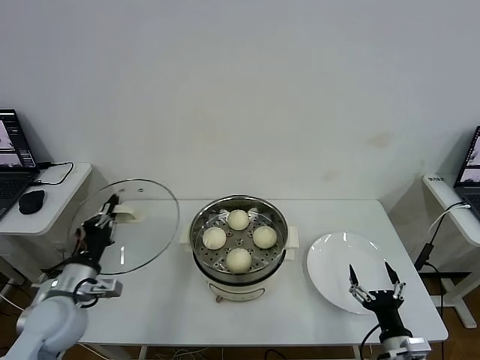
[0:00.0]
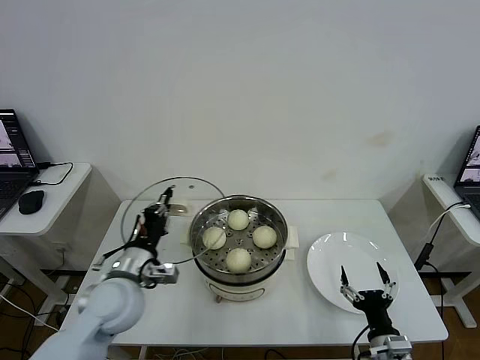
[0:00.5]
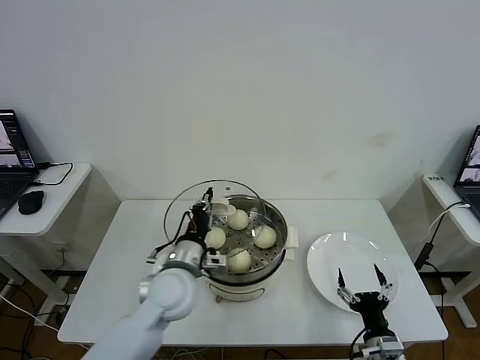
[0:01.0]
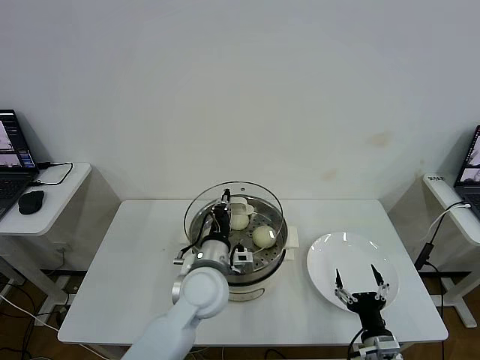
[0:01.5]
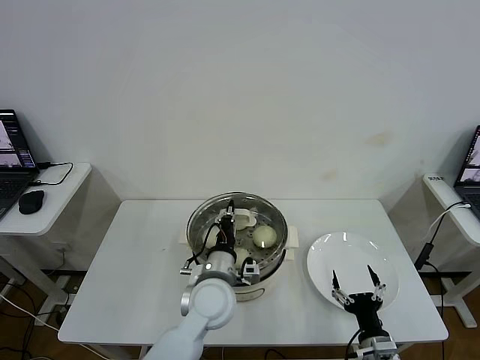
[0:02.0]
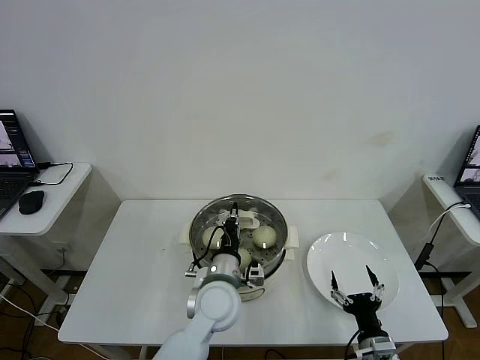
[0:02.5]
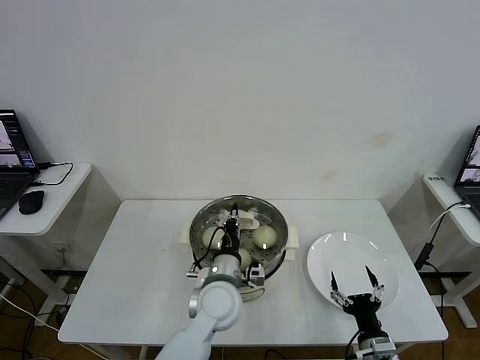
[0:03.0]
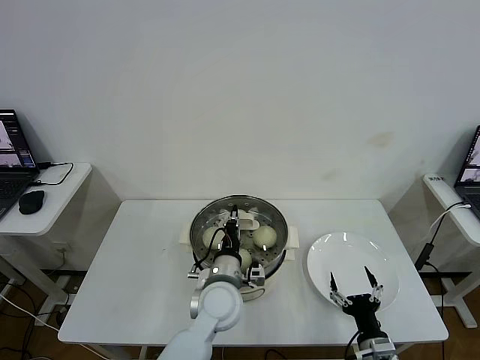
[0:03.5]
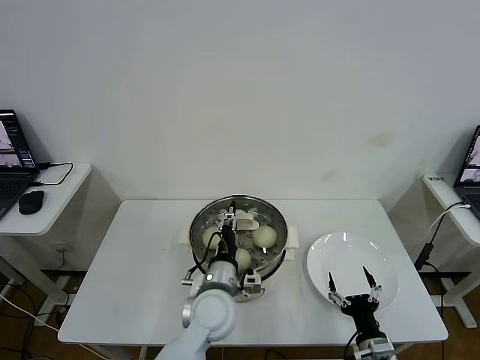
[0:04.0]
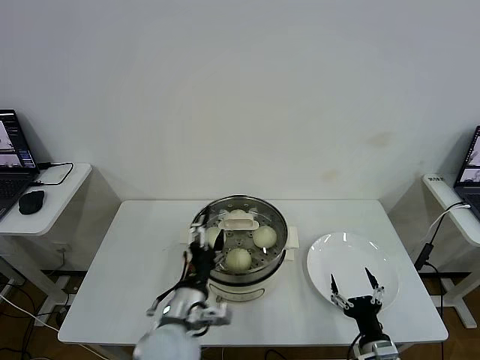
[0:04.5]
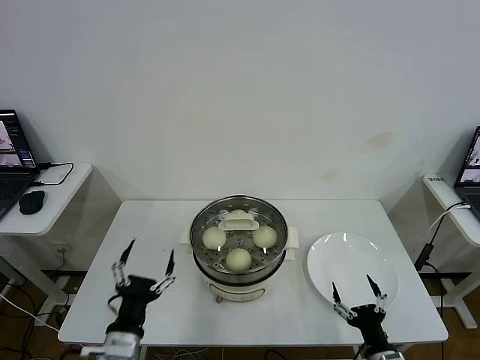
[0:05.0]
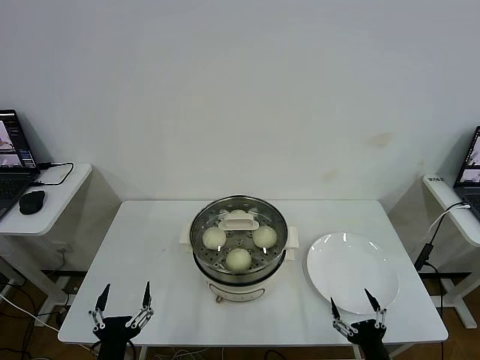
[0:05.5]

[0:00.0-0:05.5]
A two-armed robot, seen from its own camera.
Step, 0:00.0 to 0:04.0: Place the pot lid on the steamer with left gripper.
0:00.0 to 0:02.0: The left gripper travels to the right by some 30 cm.
0:02.0 to 0:03.5: The grippers stay close to where they were, moving slightly.
0:03.5 to 0:05.5: The left gripper is displaced backward and to the left by roughly 30 cm, and opens, while the right gripper moves backward, about 5 cm.

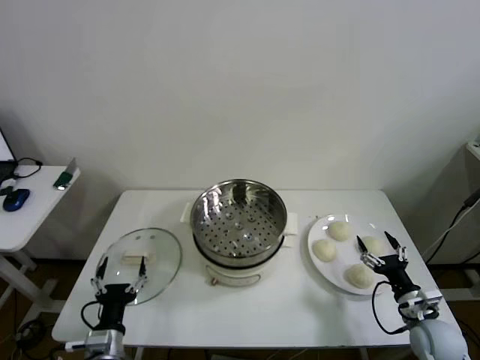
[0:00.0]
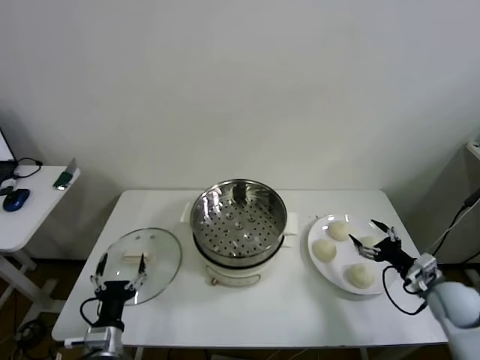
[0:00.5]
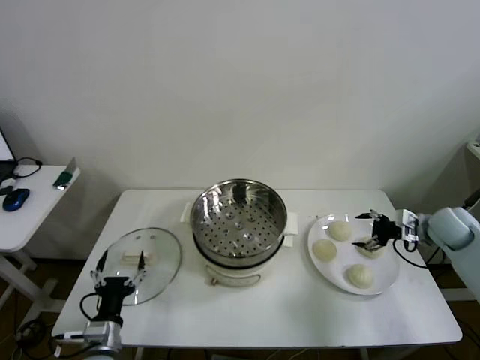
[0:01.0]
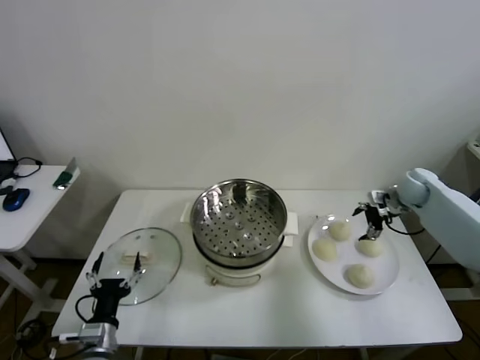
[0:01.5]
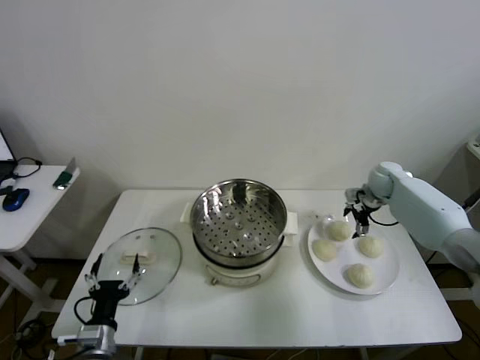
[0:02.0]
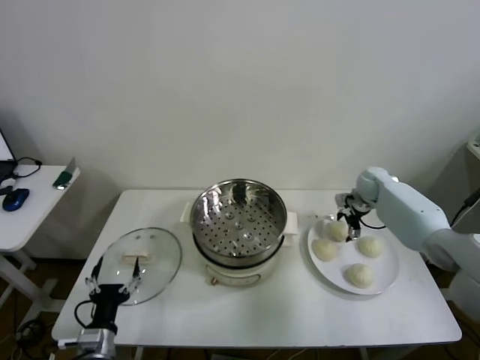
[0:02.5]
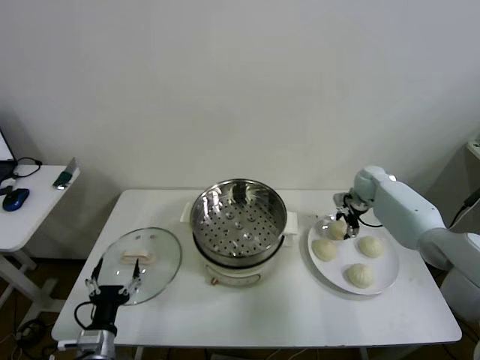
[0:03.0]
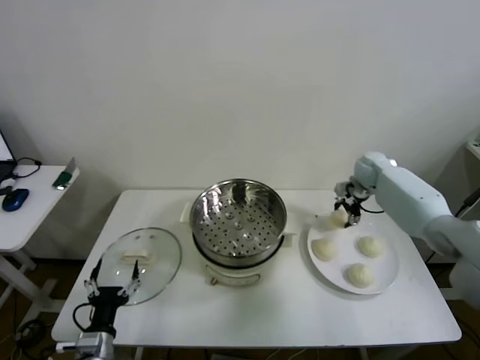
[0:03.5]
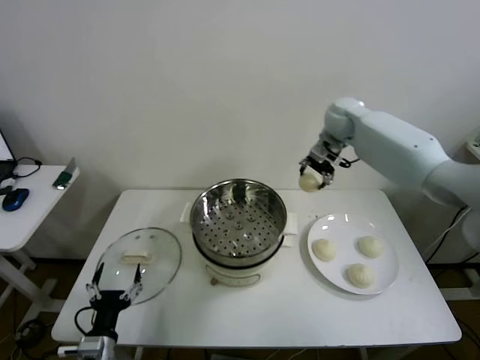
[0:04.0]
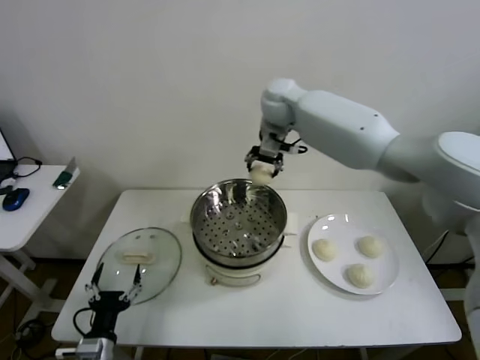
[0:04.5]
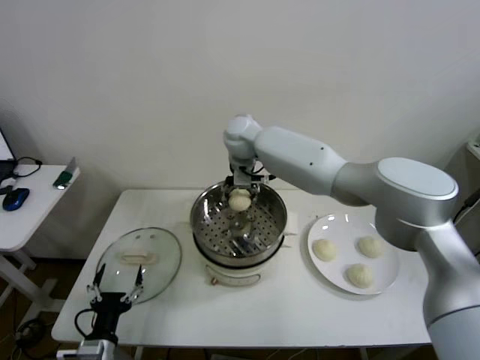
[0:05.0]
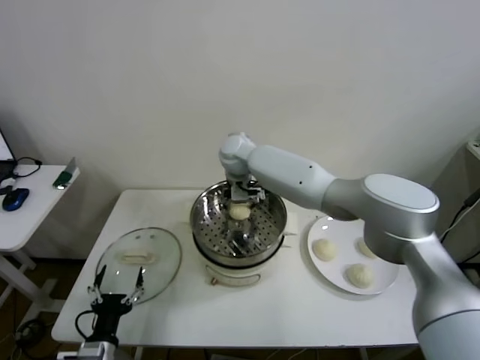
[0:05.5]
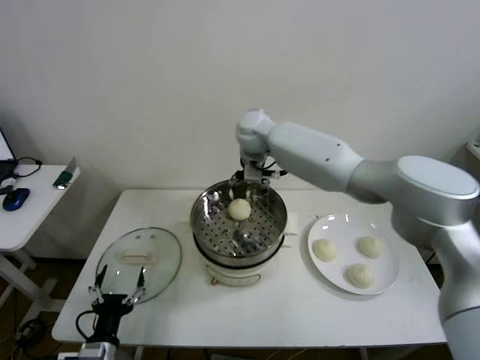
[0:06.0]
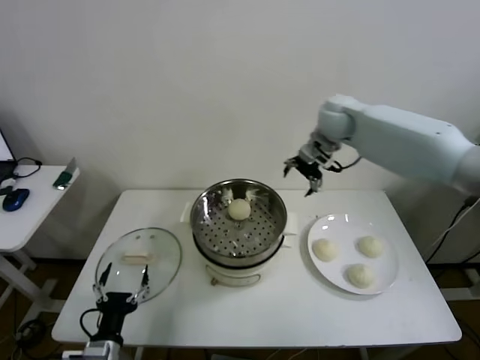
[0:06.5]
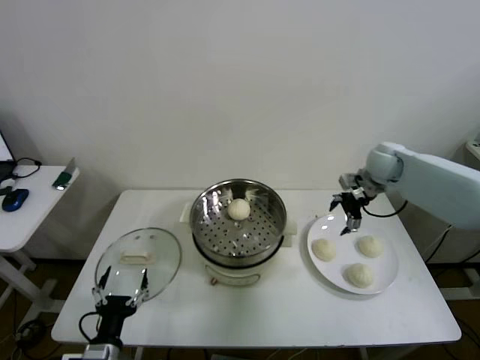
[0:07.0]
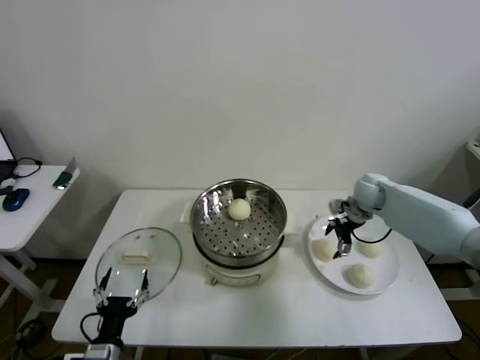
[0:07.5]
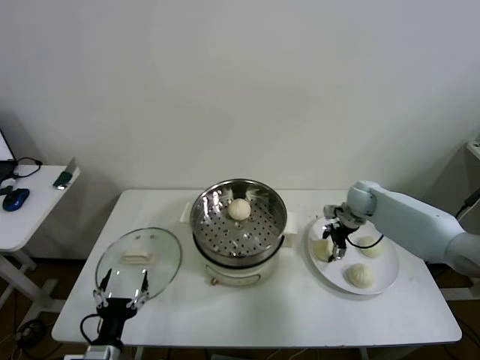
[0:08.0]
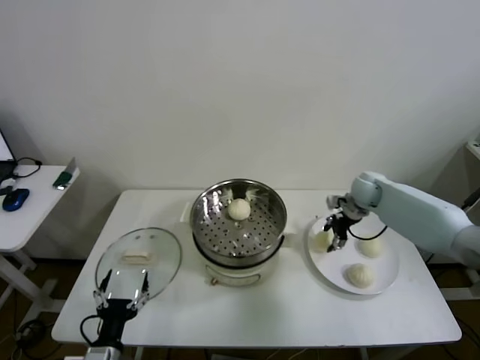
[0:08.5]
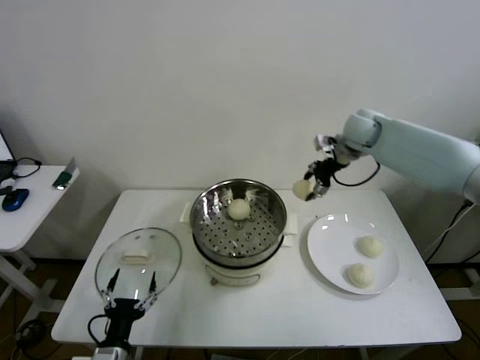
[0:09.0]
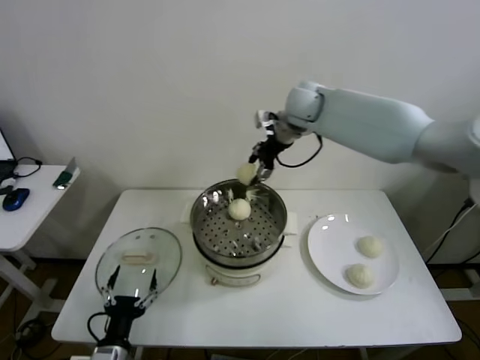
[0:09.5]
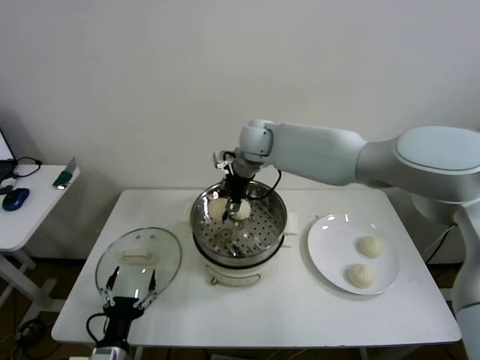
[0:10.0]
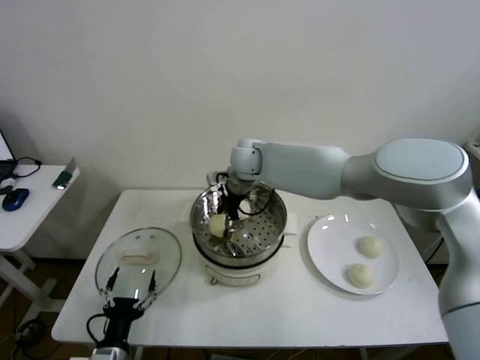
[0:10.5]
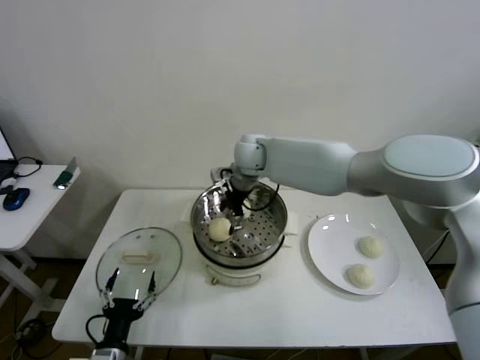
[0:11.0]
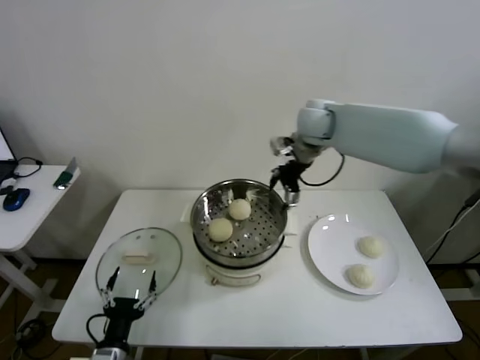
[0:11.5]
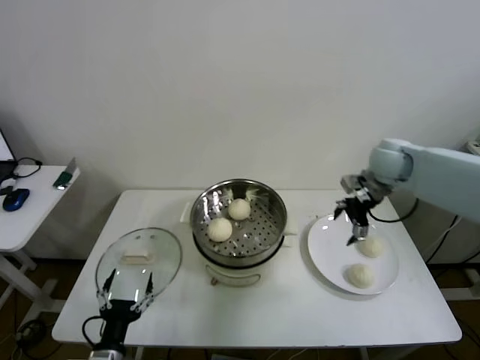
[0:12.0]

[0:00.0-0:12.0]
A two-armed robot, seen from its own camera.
Step, 0:00.0 to 0:02.5: Grasp the baozi in the plate with right gripper.
Step, 0:03.0 to 0:05.0: Place the baozi on the steamer with right gripper.
Step, 0:06.0 to 0:08.0: Grasp the baozi in the plate with right gripper.
Step, 0:08.5 to 0:10.5: Place the baozi on the steamer with right gripper.
0:02.0 to 0:04.0: The right gripper is displaced upward and to the left by some 30 cm, and closes.
0:04.0 to 0:06.0: The right gripper goes some 15 cm to the left, and opens up.
0:06.0 to 0:08.0: The right gripper goes approximately 35 cm to the right and downward, and closes.
0:08.0 to 0:10.0: The right gripper heads to the left and upward, covering about 35 cm.
0:10.0 to 0:12.0: The right gripper shifts roughly 30 cm to the right, and opens up.

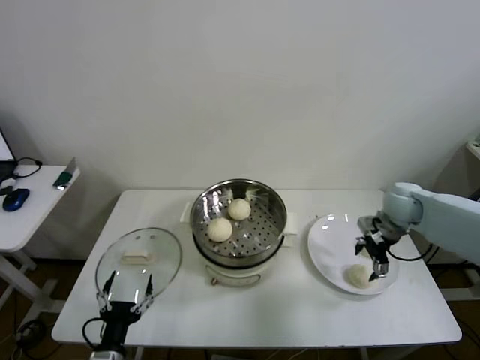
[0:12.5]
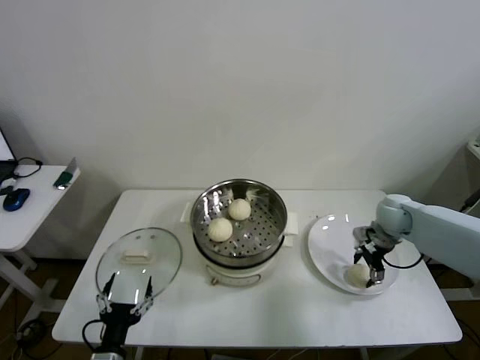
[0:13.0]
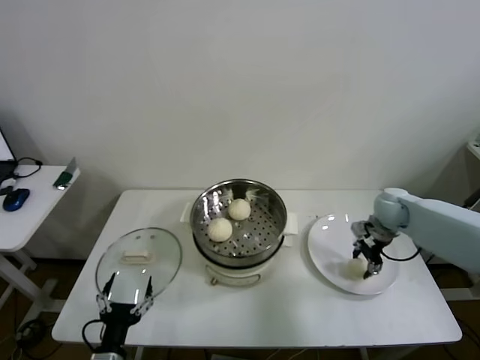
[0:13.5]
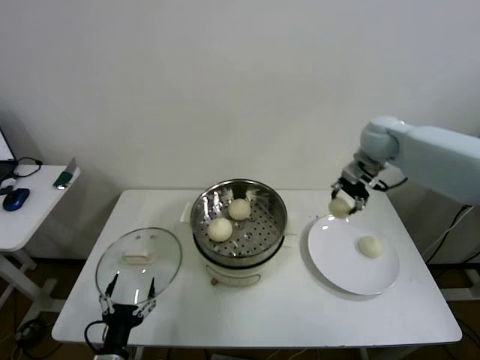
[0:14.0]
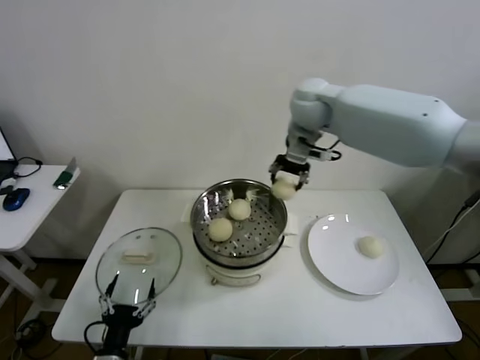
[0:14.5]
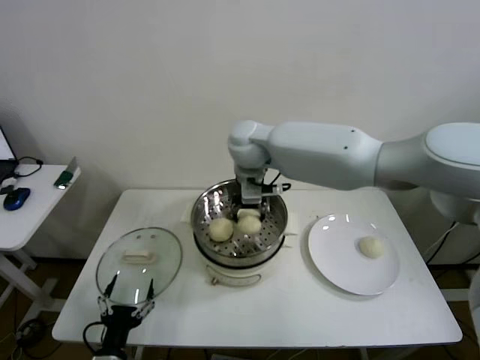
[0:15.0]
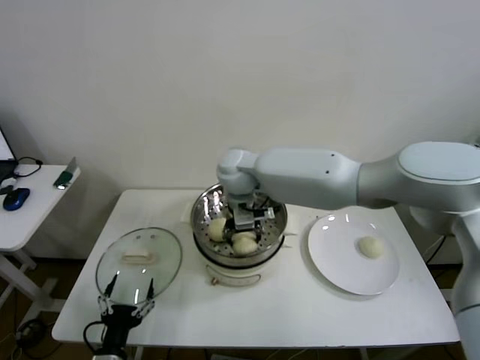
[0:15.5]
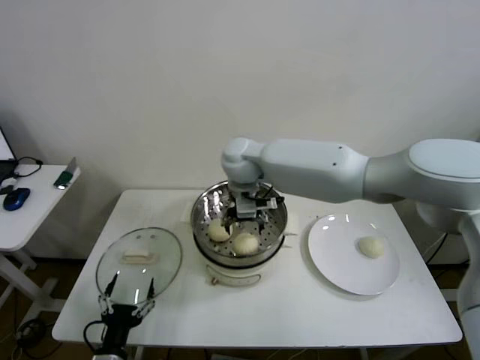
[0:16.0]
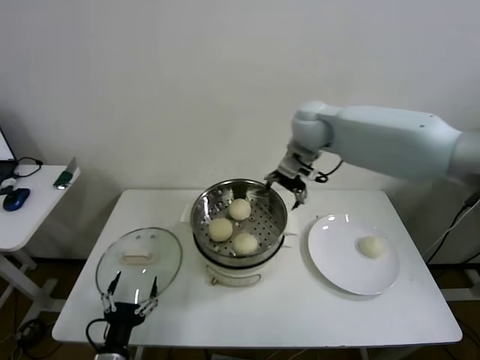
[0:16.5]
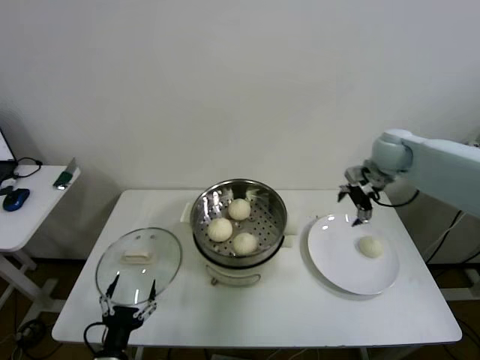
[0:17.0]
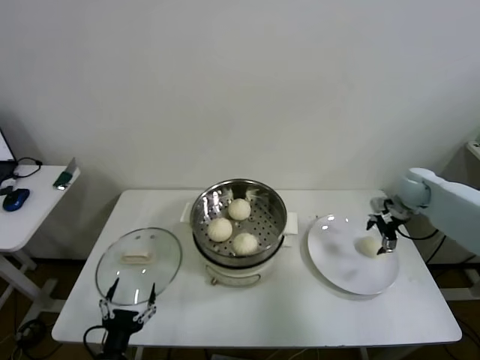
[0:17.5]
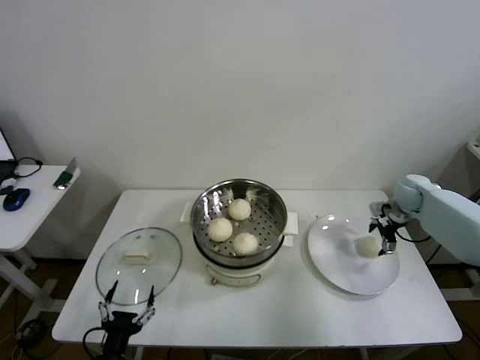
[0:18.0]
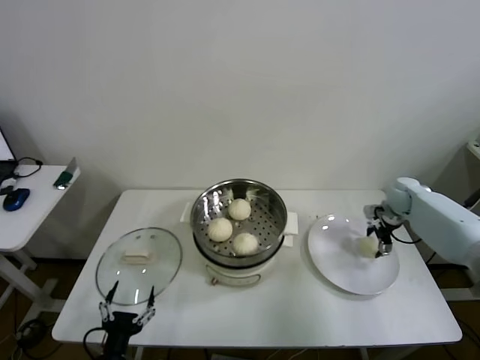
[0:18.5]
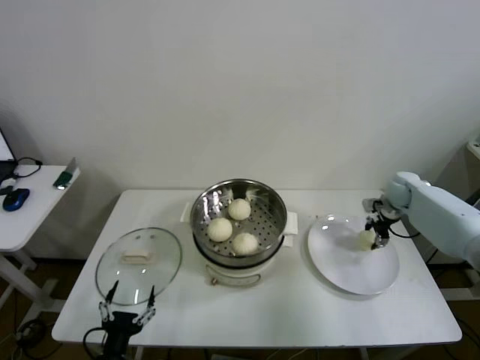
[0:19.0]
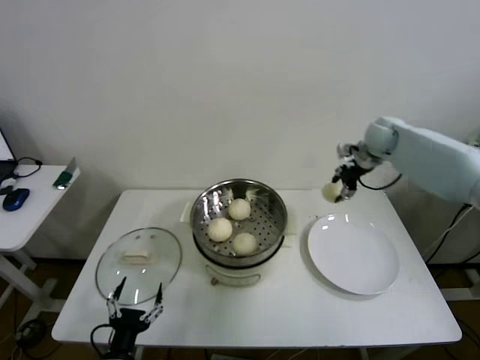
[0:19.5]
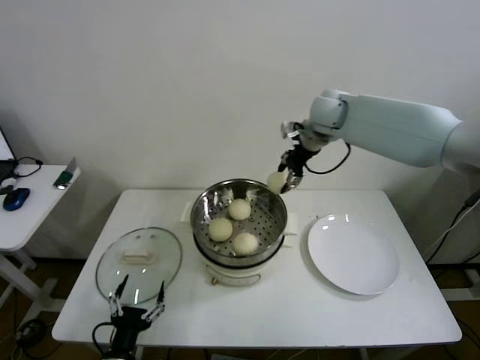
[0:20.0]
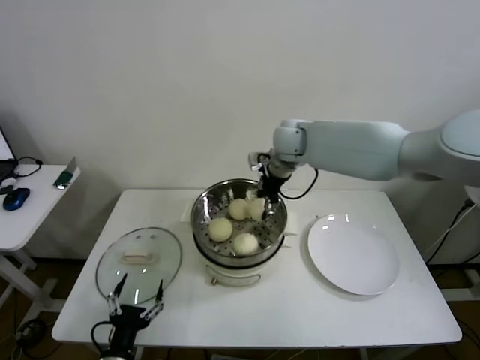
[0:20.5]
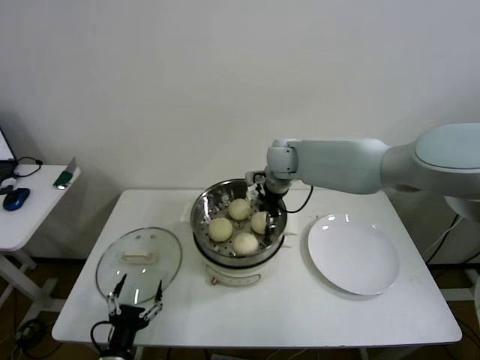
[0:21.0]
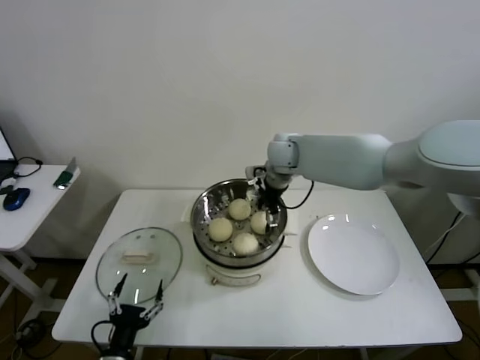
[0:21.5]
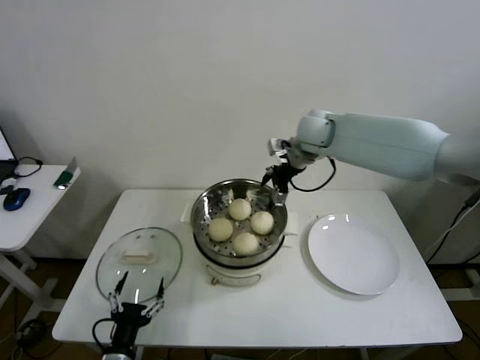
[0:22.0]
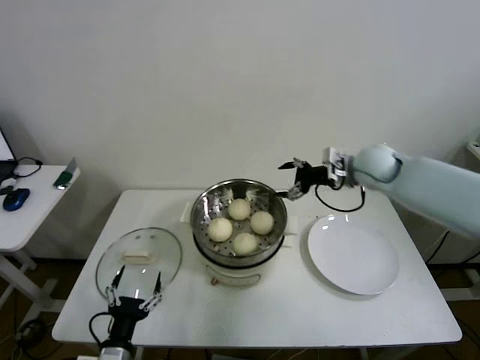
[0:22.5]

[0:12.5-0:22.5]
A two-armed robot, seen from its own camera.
Step, 0:13.5 to 0:15.5: Place the baozi on the steamer with right gripper.
Step, 0:16.0 to 0:18.5: Grasp the baozi in the plate with right gripper.
Step, 0:19.0 to 0:21.0: Place the baozi on the steamer with right gripper.
0:12.5 to 0:14.5: The right gripper travels to the left and upward by some 35 cm, and closes.
0:14.5 to 0:16.5: The right gripper reaches approximately 15 cm to the left, then returns, and opens up.
0:16.5 to 0:18.5: The right gripper goes some 35 cm to the right and downward.
0:18.5 to 0:20.5: The right gripper goes roughly 40 cm to the left and upward, and closes its fingers.
0:20.5 to 0:22.5: The right gripper heads to the right, covering approximately 20 cm, and opens its fingers.
